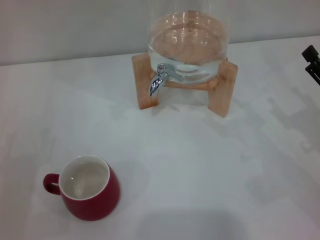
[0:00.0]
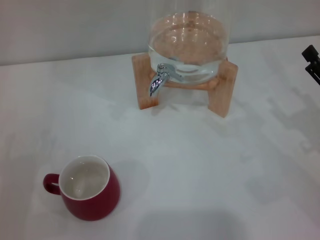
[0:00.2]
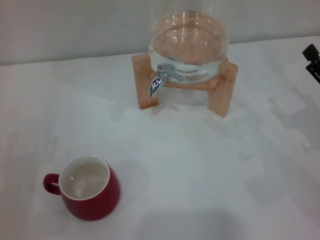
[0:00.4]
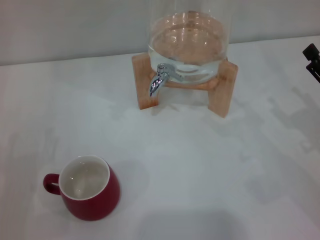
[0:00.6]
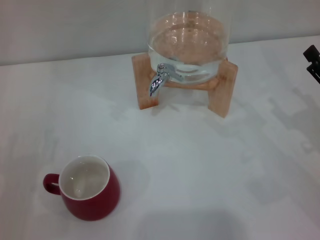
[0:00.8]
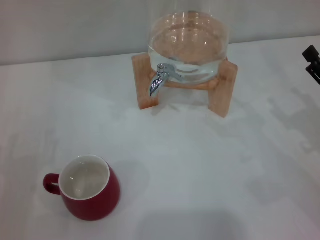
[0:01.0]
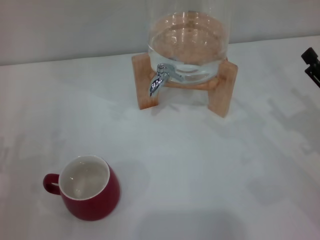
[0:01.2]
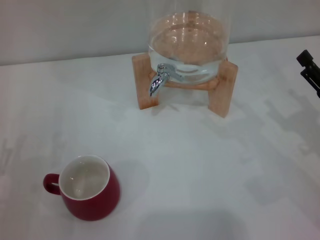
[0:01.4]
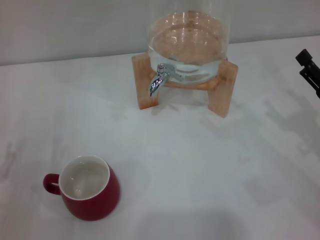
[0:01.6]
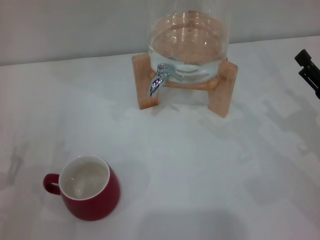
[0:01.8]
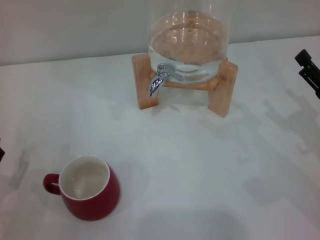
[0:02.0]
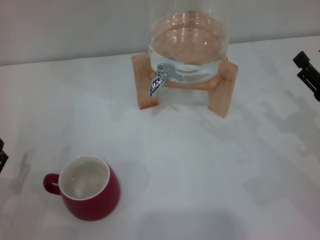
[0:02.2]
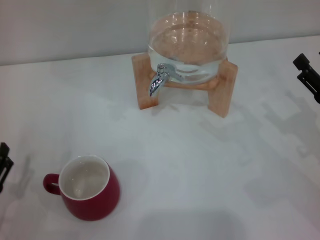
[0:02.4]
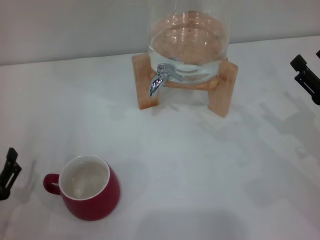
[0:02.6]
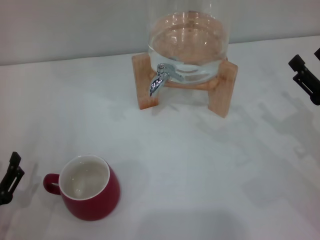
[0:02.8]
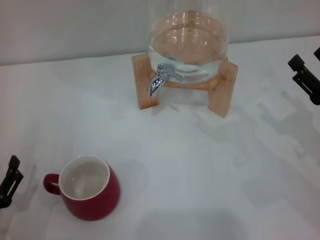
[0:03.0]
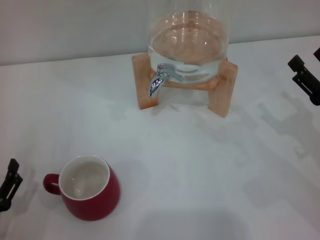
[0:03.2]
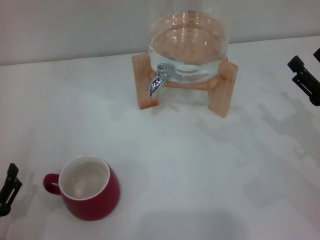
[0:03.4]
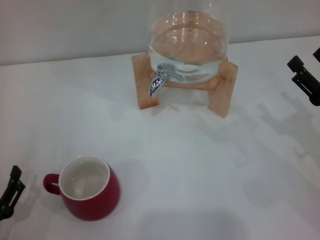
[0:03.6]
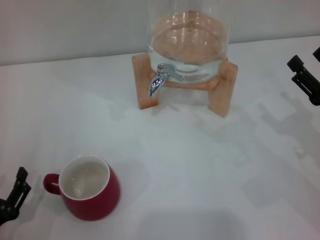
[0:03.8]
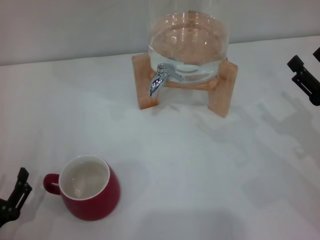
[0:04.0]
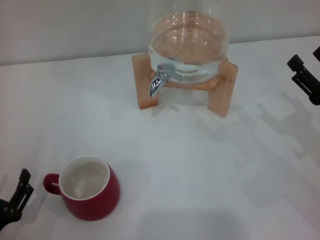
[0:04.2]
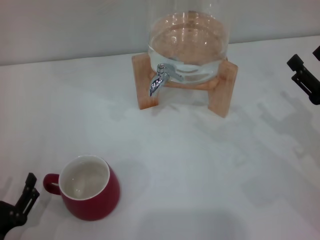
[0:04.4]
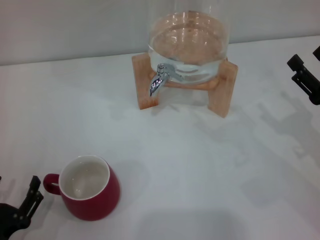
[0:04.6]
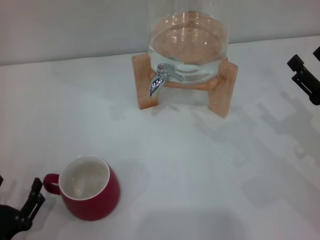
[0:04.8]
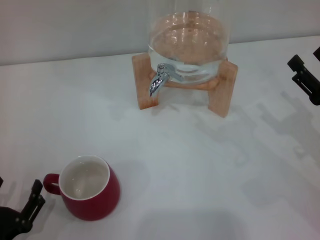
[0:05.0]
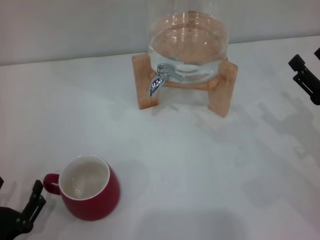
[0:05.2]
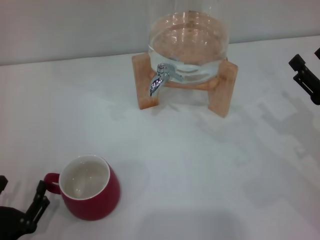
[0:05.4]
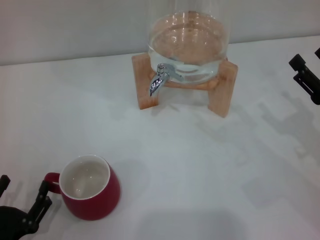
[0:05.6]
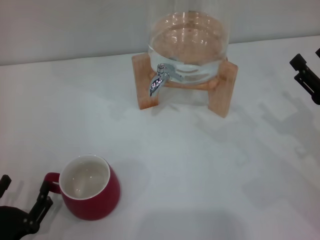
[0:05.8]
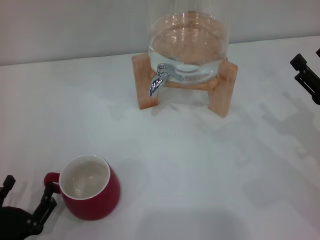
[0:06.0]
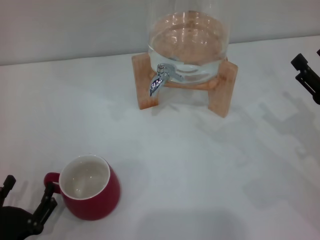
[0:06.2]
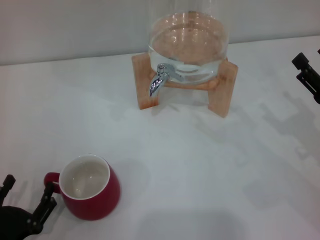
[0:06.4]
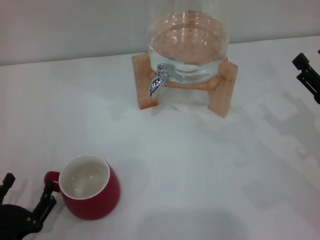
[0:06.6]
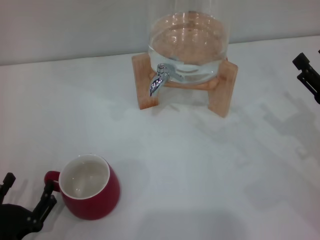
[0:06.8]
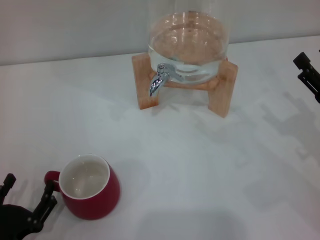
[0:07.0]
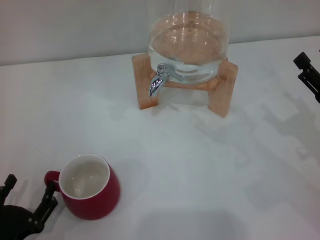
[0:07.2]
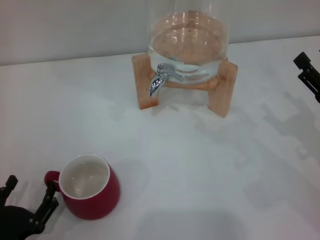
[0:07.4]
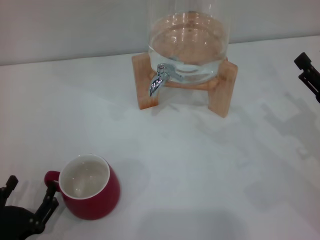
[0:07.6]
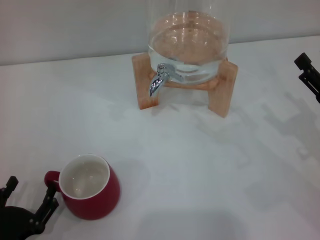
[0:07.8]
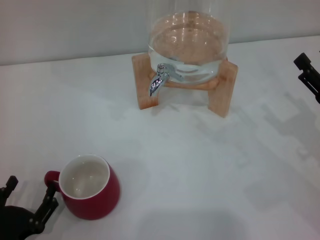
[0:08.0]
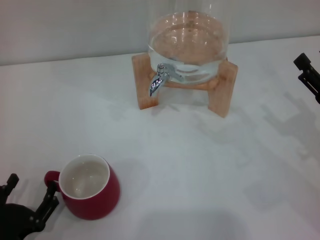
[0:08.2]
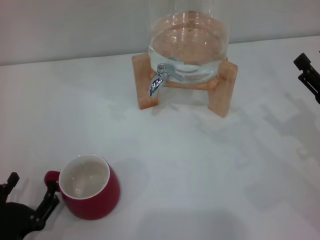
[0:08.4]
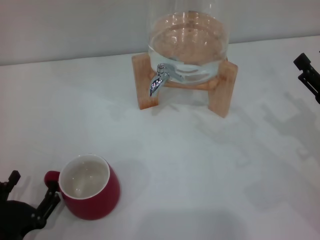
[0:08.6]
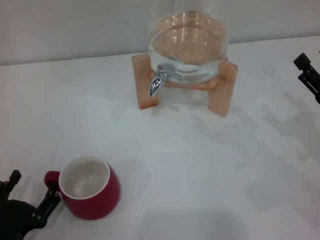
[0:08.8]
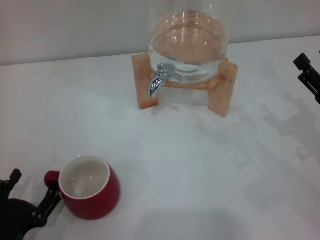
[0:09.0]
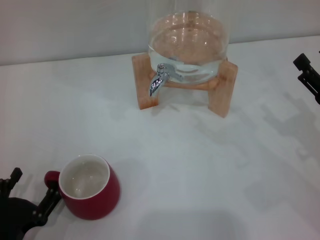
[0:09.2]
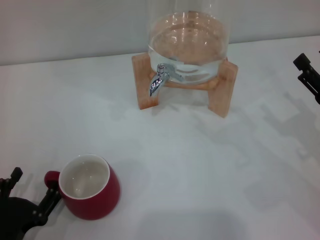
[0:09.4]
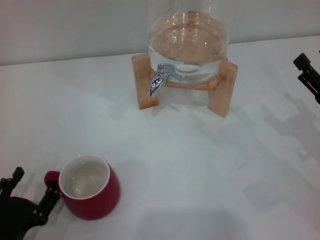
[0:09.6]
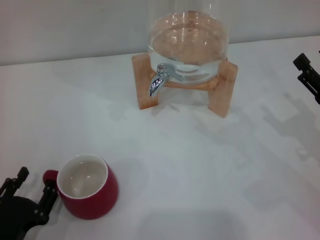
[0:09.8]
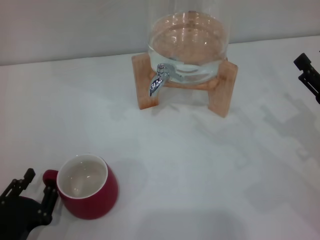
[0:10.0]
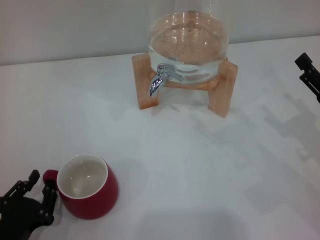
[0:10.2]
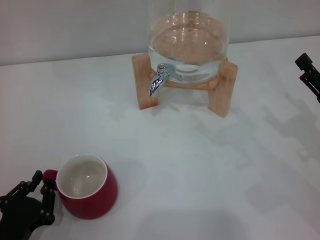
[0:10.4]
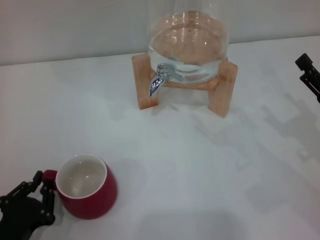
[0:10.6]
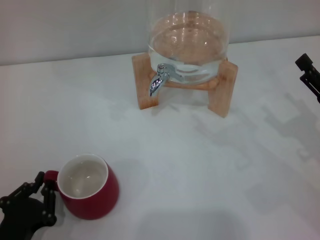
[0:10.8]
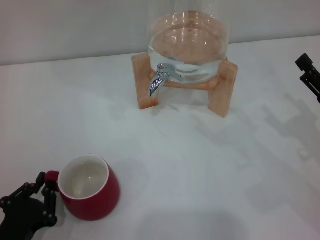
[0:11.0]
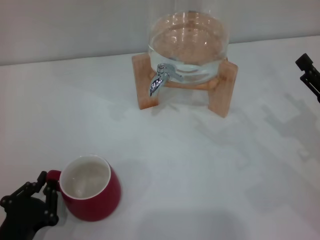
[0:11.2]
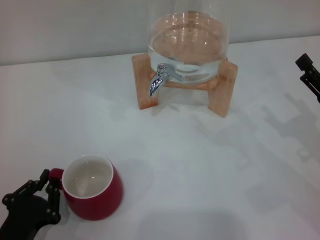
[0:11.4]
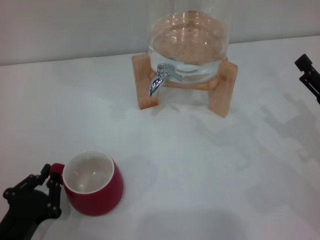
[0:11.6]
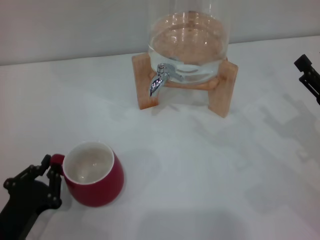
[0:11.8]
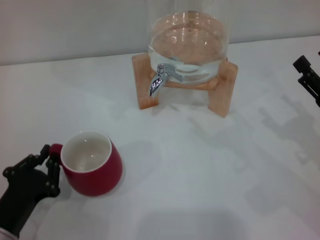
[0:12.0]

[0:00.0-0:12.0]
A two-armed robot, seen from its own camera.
Task of the whole recording: the left gripper pick up the red cup and place it horizontally under the faucet, the right gripper turn on the faucet to fill the cup, and then turn off the faucet.
0:01.6 to 0:03.0: The grippers stay close to where they were, moving slightly.
0:03.0 to 0:06.0: The grippers make only small movements.
0:06.0 to 0:09.0: Both grippers stay put.
0:09.0 to 0:10.4: The left gripper closes up.
0:10.4 to 0:12.0: The left gripper closes its fingers.

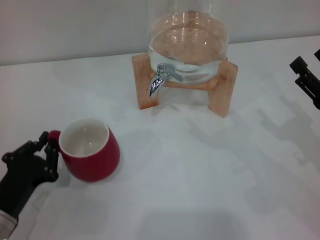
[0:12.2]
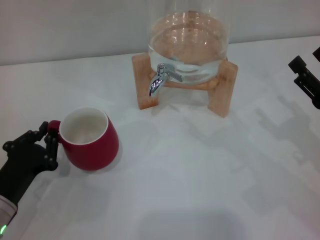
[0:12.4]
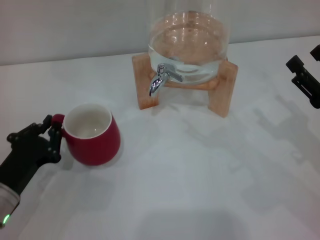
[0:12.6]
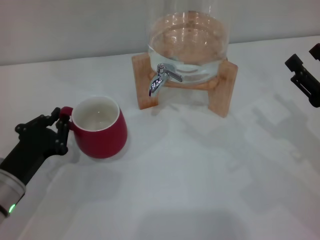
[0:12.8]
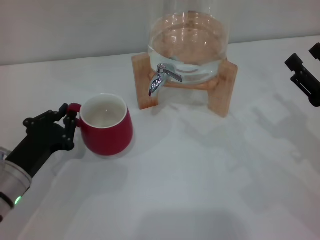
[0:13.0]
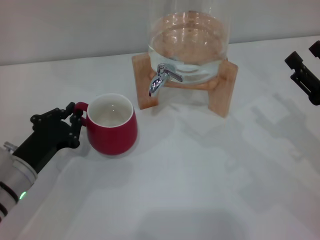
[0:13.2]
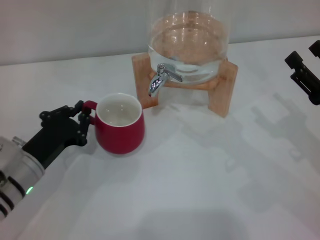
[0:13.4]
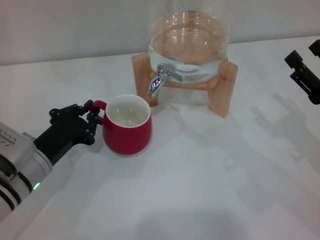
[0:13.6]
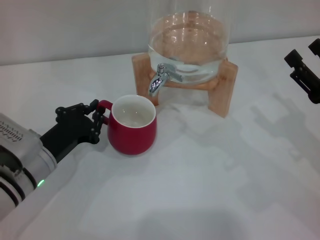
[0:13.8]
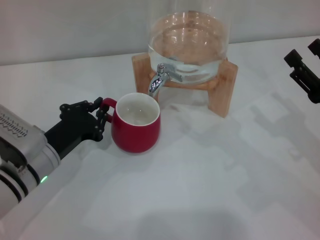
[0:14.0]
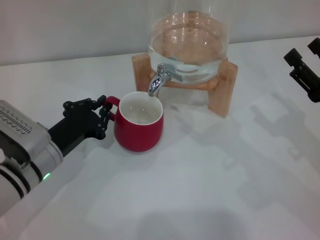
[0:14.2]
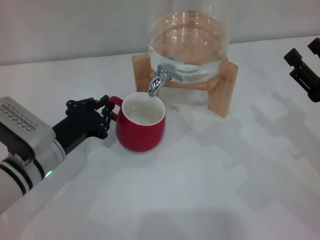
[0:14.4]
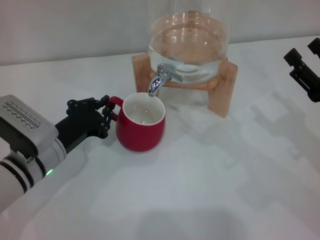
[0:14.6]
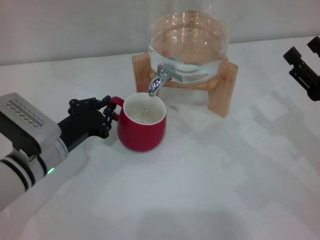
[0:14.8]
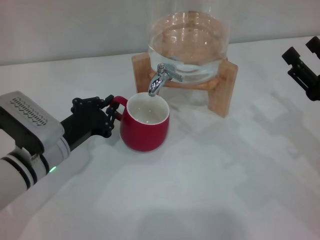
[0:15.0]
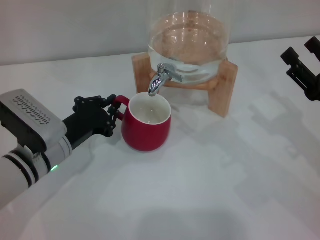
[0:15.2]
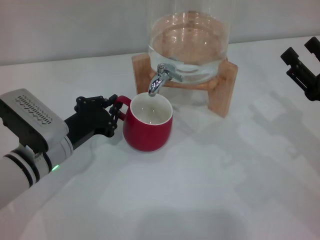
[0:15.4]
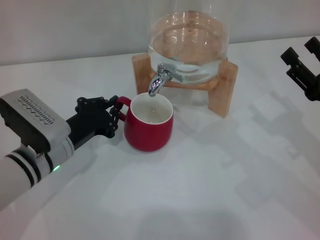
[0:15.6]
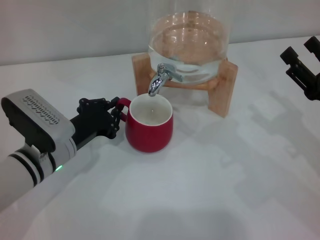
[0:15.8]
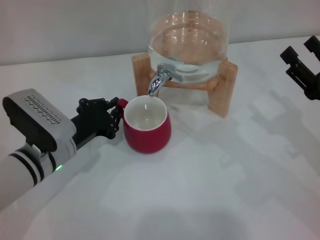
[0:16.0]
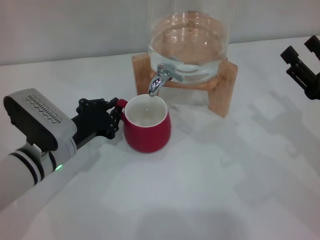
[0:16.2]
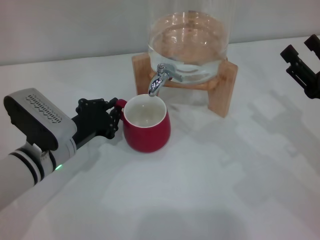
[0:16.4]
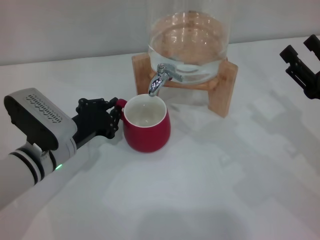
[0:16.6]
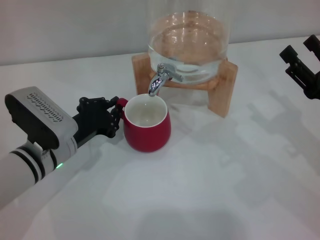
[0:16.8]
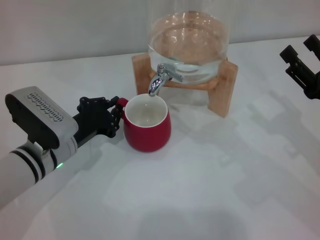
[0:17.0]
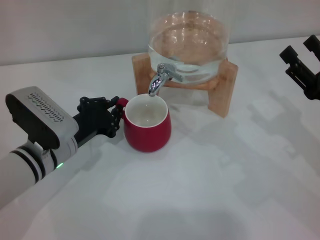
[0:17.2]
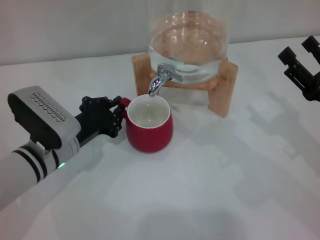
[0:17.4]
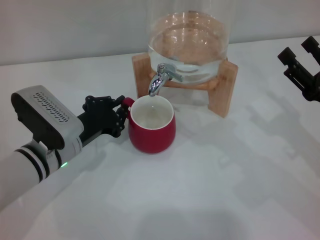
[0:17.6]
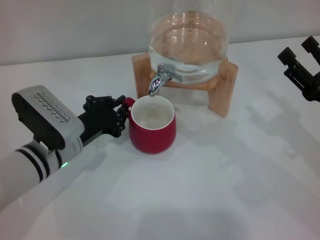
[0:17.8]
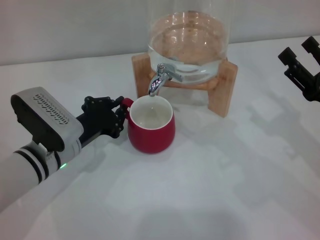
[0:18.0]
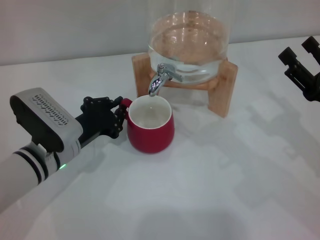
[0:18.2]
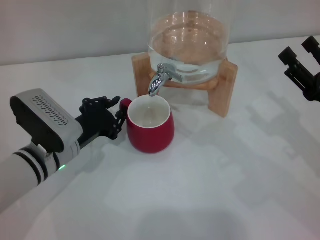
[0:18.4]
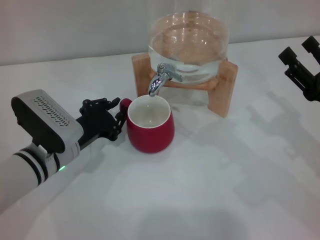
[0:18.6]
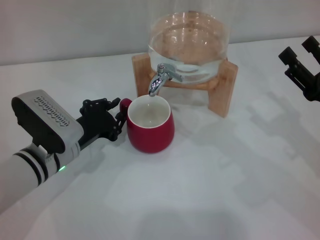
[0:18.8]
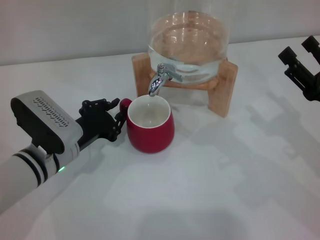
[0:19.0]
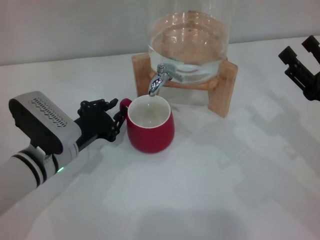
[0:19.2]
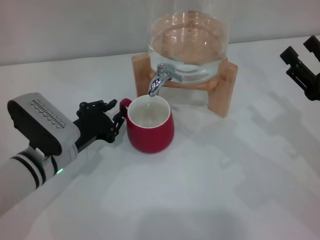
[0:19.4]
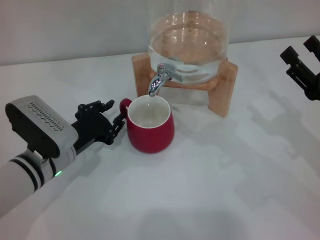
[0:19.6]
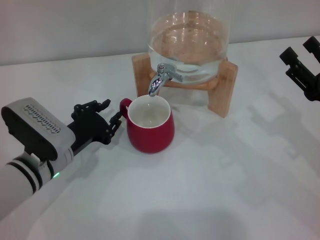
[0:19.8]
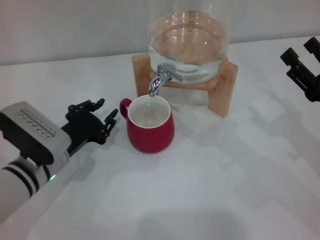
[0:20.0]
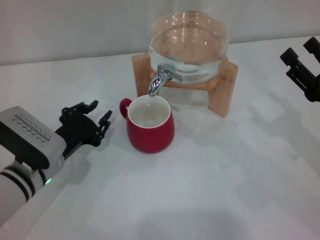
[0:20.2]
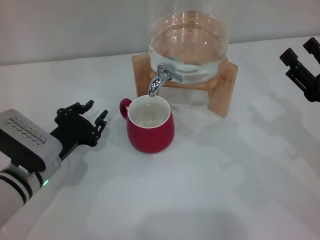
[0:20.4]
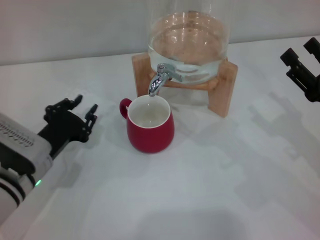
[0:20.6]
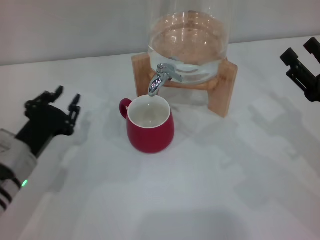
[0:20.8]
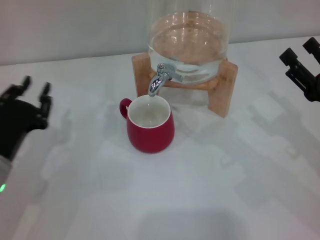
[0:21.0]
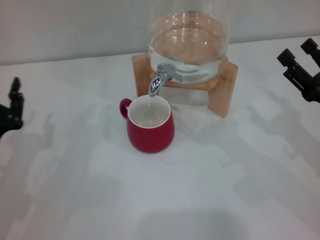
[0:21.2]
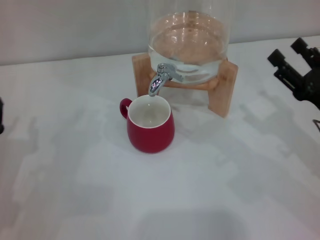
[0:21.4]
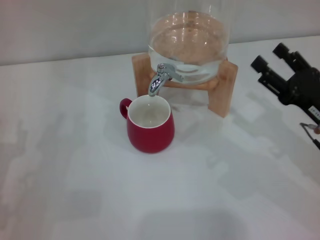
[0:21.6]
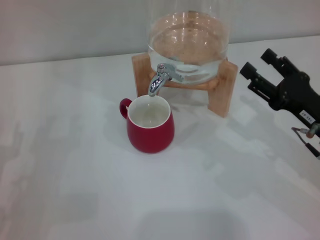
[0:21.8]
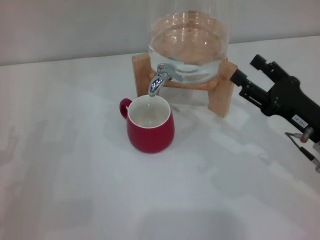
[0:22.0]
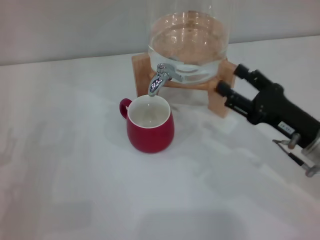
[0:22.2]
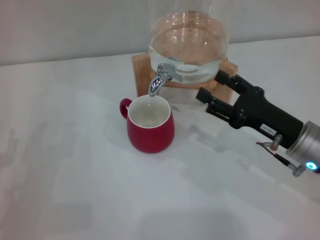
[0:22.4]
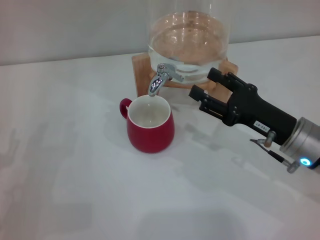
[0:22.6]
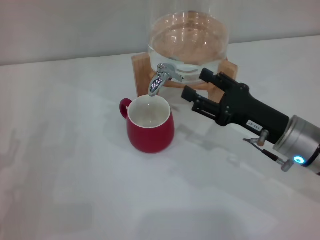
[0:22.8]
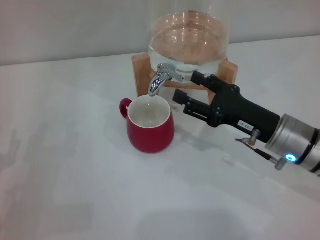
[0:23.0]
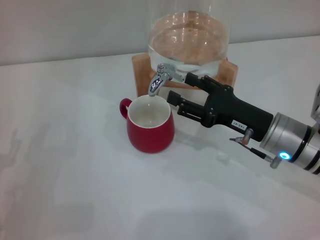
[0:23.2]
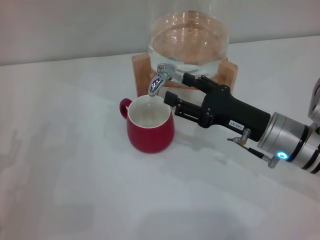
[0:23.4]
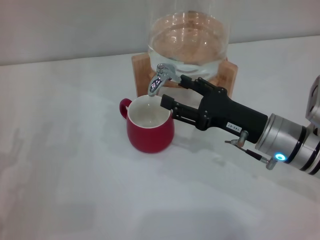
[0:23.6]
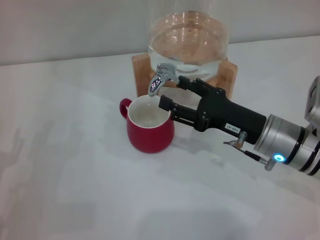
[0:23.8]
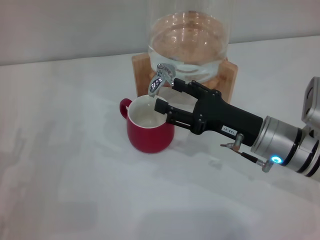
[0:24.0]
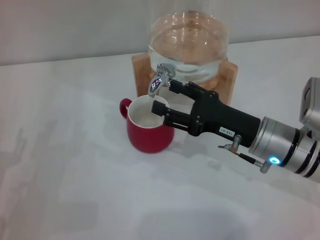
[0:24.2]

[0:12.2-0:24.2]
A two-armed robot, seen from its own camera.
Task of the whole recording: the left gripper pick up the red cup and place it horizontally under the faucet, the right gripper turn on the faucet to fill the cup, and then turn off the faucet.
Step, 0:12.2 to 0:19.8: Move the cup beneath the water dispenser nozzle with the left gripper.
0:12.2 to 0:13.8: The left gripper is displaced forward and to the right by approximately 10 cm.
0:13.8 to 0:15.2: The grippers make only small movements.
0:15.2 to 0:16.6: Both grippers stay put.
0:16.6 to 0:18.2: The two grippers keep their place.
0:18.2 to 0:19.8: There are only small adjustments of the grippers.
0:19.8 to 0:21.2: The left gripper moves to the left and backward, some 10 cm.
0:21.2 to 0:22.6: The right gripper travels to the left by approximately 10 cm, while the left gripper ends up approximately 5 cm from where it was, and opens its fingers.
0:22.6 to 0:24.2: The grippers make only small movements.
